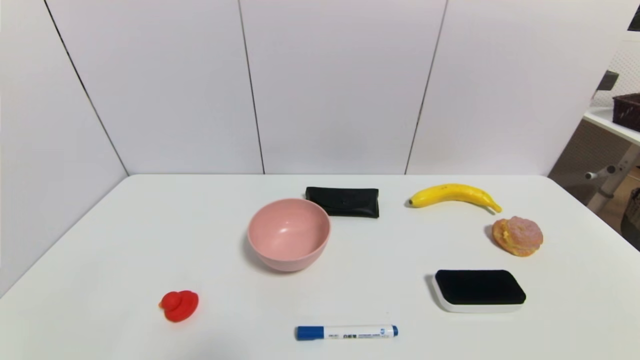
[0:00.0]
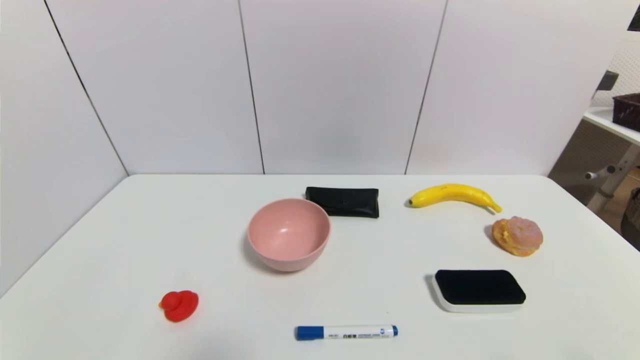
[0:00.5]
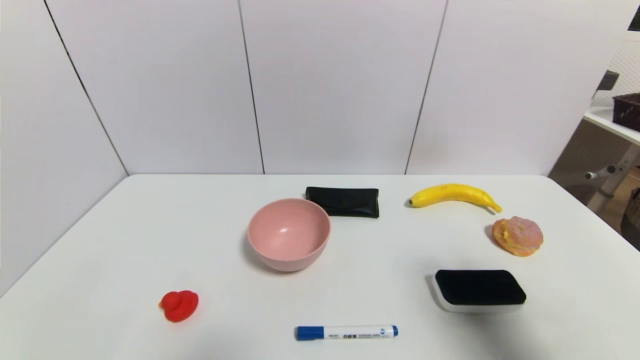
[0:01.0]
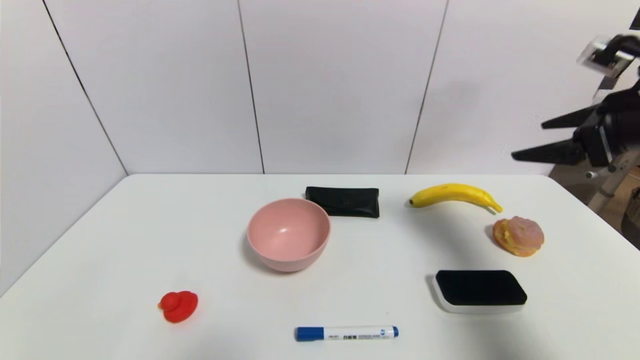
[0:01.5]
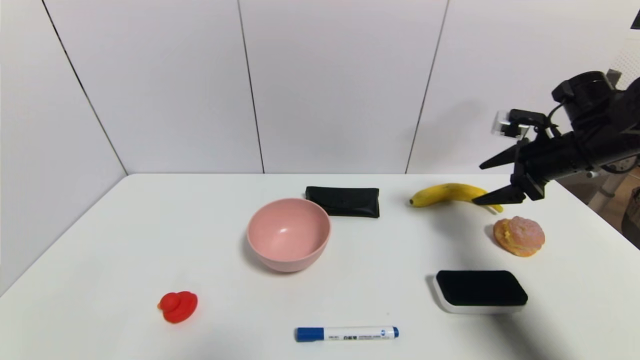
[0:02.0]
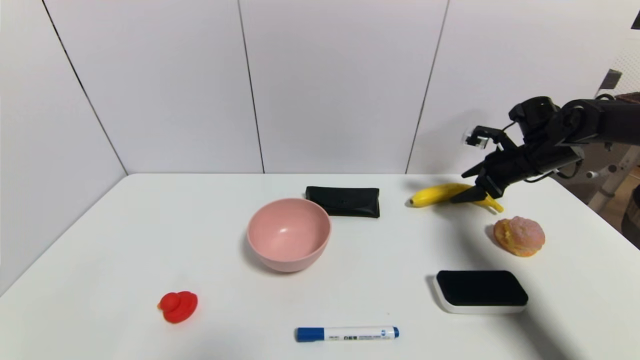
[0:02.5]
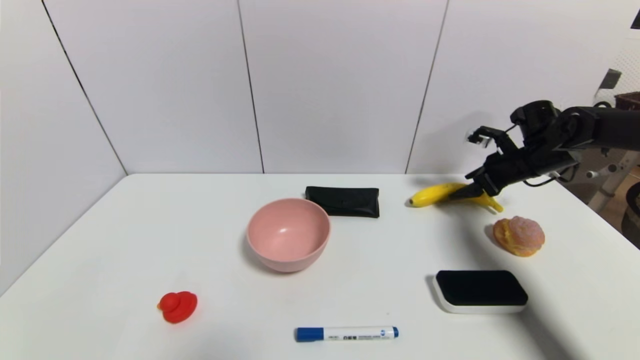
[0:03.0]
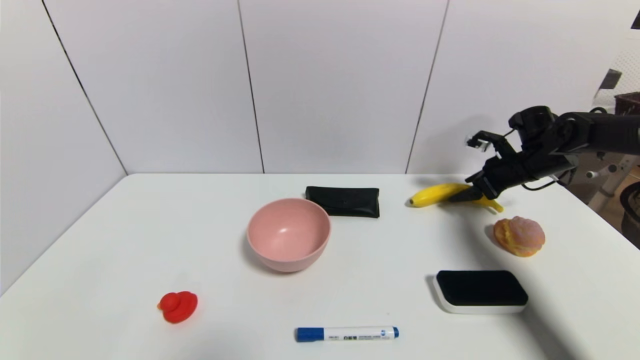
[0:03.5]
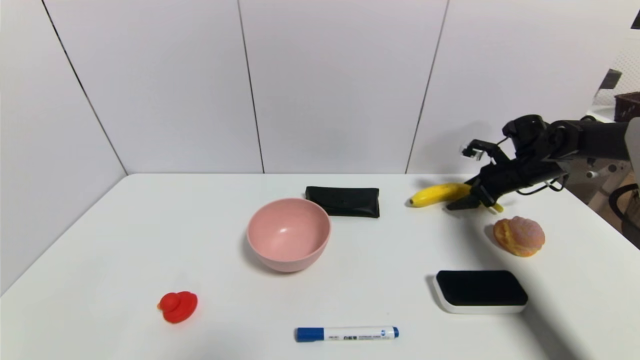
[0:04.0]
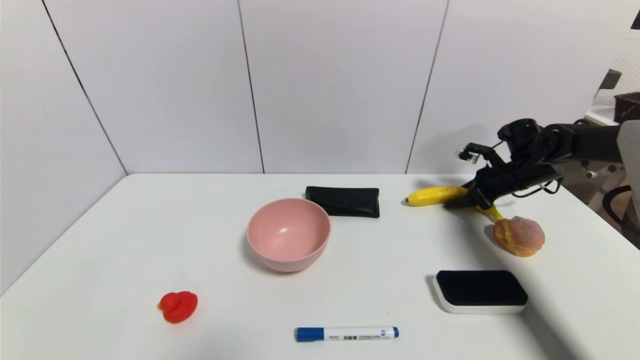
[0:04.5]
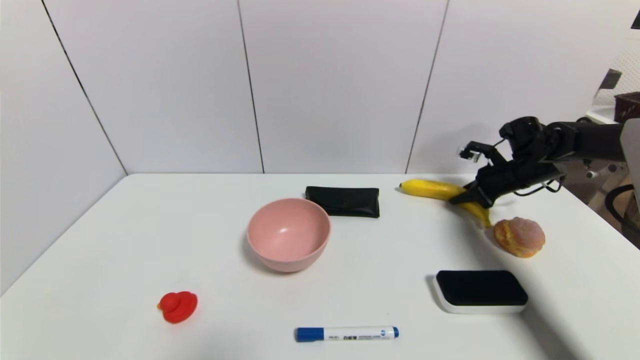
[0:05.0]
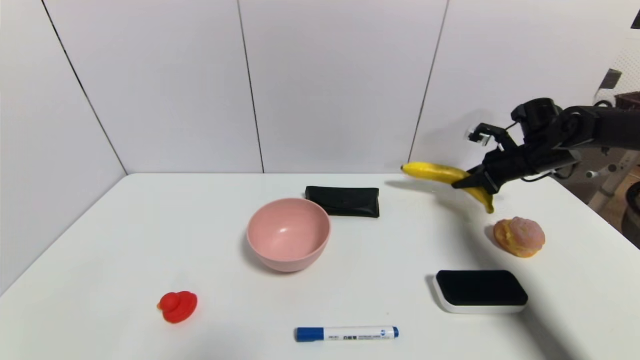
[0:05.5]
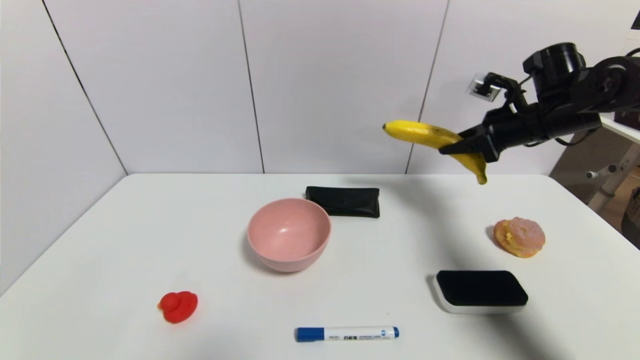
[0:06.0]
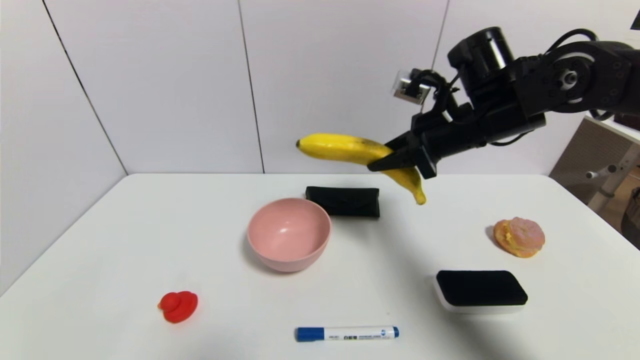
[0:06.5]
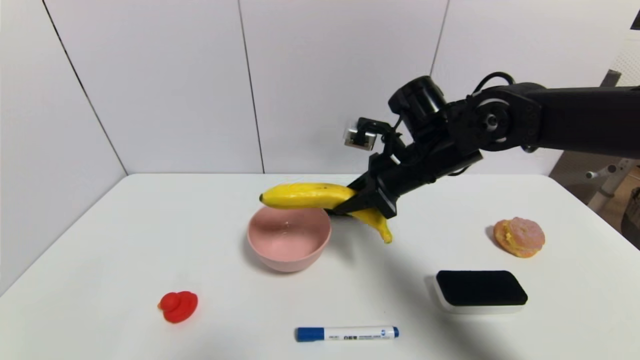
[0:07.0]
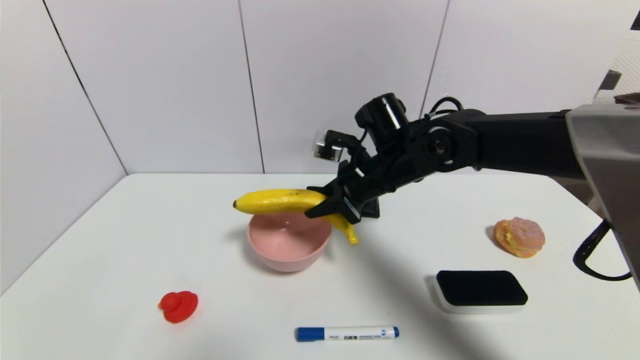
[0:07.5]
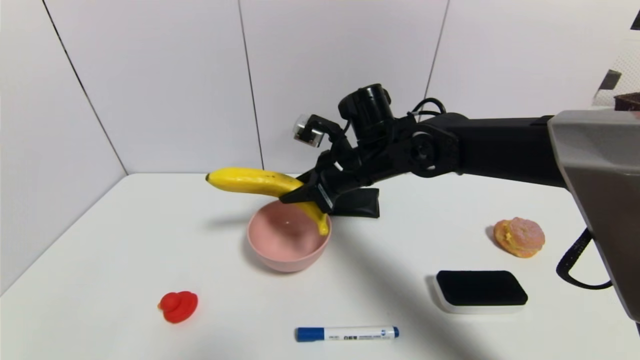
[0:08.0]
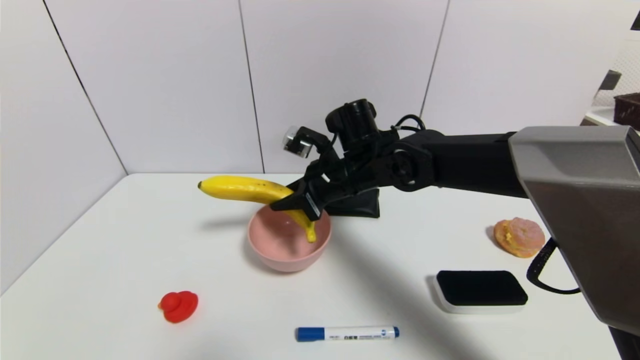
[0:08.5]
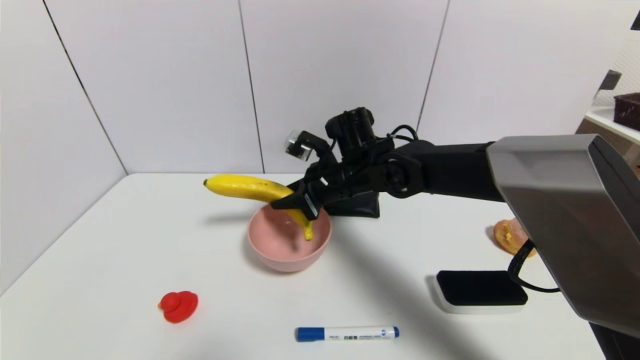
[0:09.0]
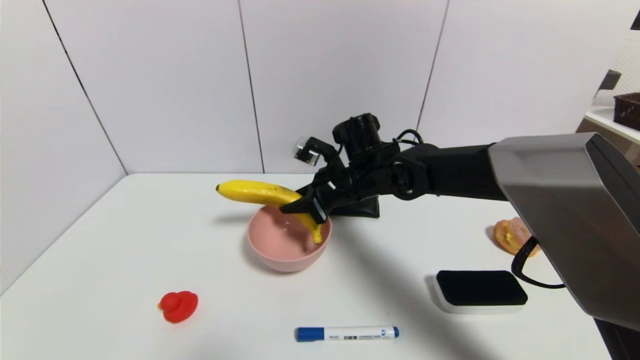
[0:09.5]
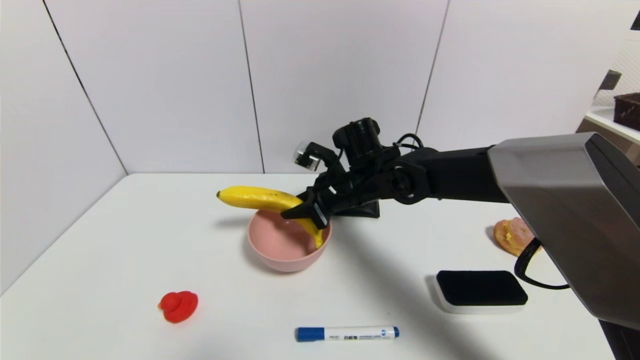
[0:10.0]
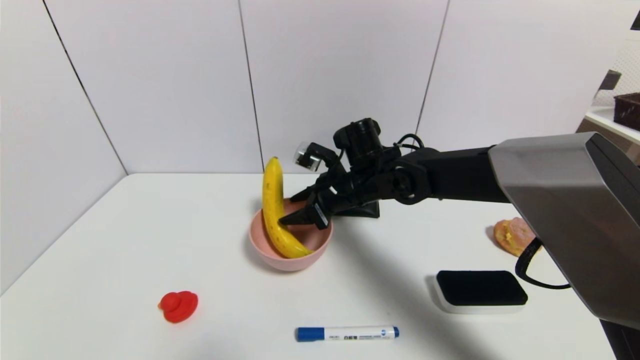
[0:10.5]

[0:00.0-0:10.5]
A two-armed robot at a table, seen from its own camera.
Task of the whole recording: use a gripper to pick the target object and place on the pink bowl.
Step, 0:00.0 to 0:05.0: Grasp the banana with the right gripper.
0:00.0 to 0:02.0: The right gripper travels forward and upward by some 40 cm.
0:02.0 to 0:04.0: The right gripper shifts some 15 cm forward and downward.
0:04.0 to 0:06.5: The right gripper moves to the left, upward and backward, roughly 25 cm, and closes.
0:06.5 to 0:08.5: The right gripper moves to the left and downward, about 15 cm.
0:08.5 to 0:10.5: The right gripper opens up.

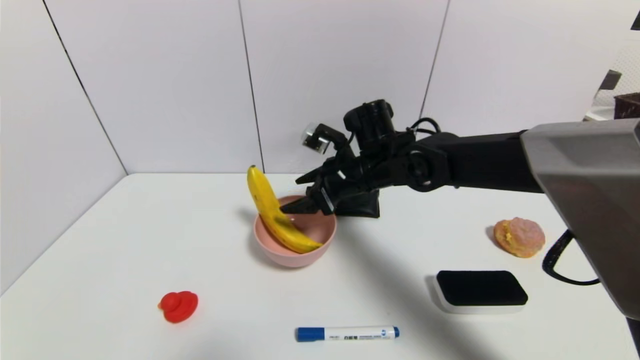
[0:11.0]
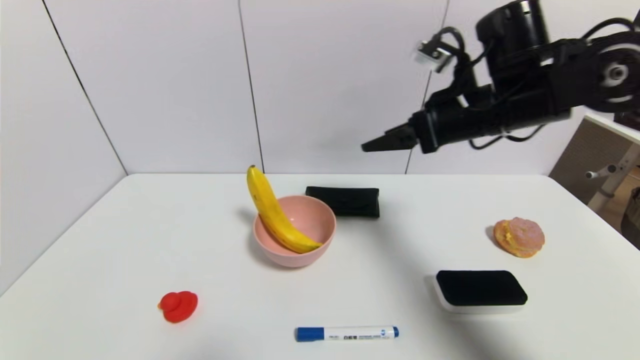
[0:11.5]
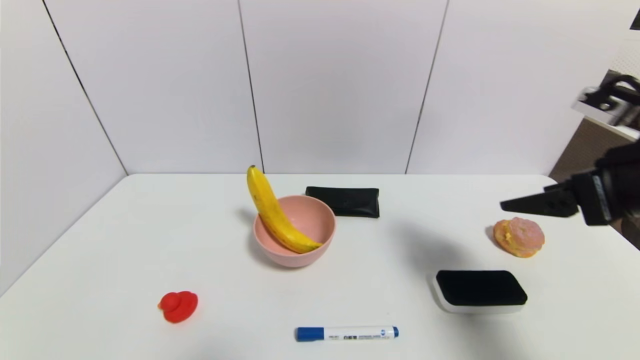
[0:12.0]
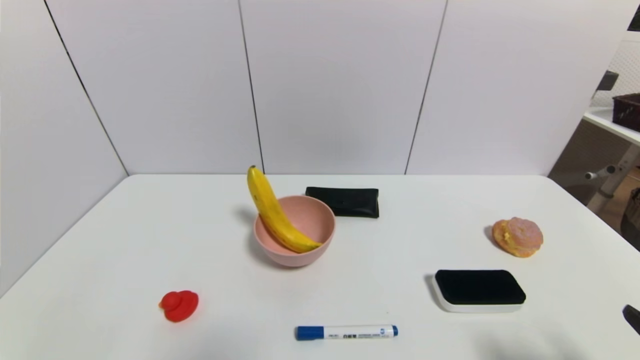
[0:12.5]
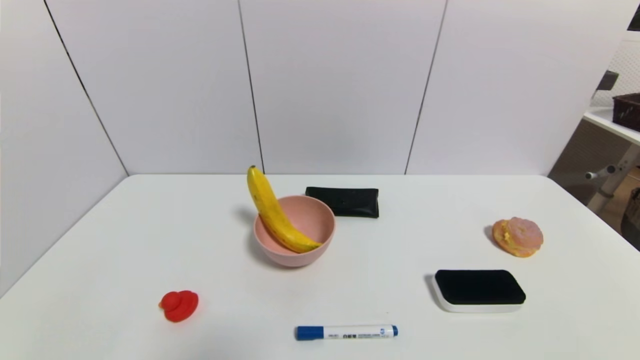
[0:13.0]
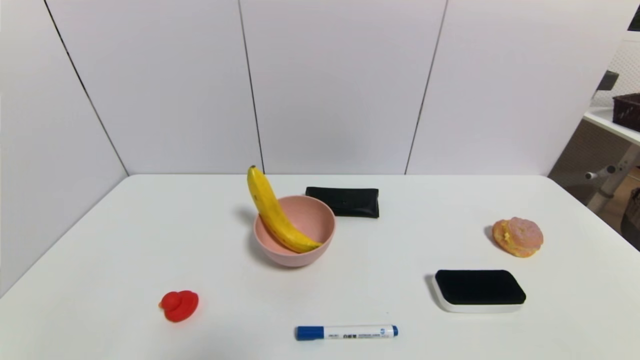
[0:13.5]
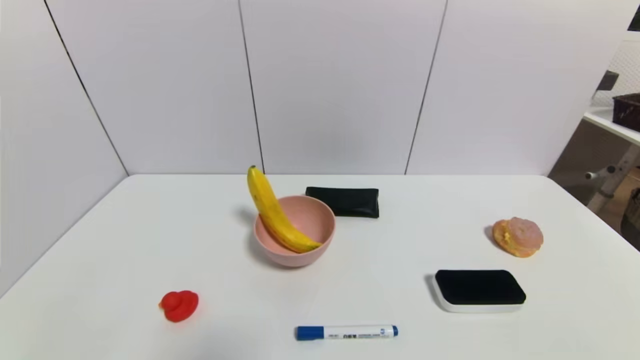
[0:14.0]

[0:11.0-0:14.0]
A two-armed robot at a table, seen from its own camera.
Task of the whole recording: use a gripper to pick the target object and place on the pink bowl.
0:11.0 to 0:12.5: The right gripper goes about 40 cm backward and to the right.
0:12.5 to 0:14.0: The right gripper moves downward, roughly 10 cm.
